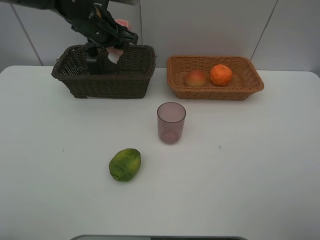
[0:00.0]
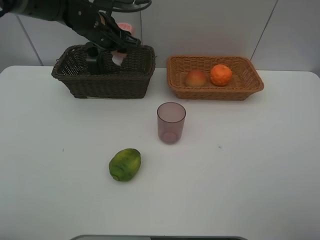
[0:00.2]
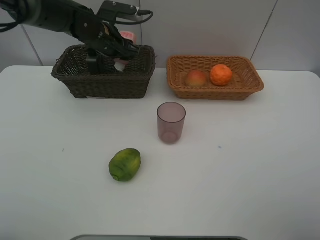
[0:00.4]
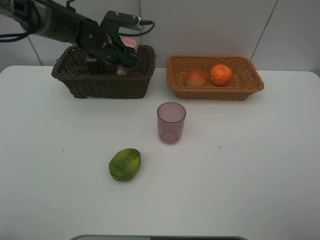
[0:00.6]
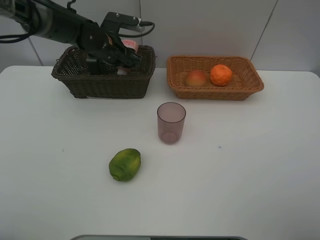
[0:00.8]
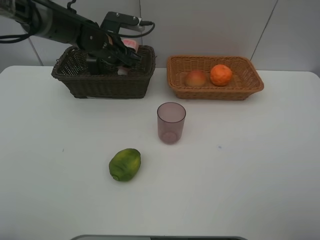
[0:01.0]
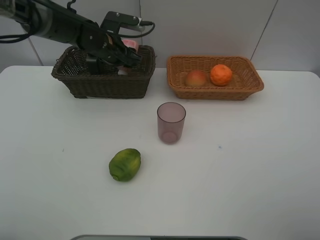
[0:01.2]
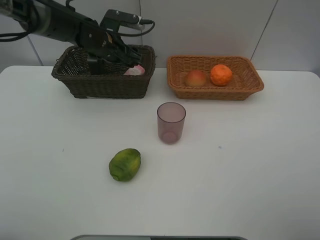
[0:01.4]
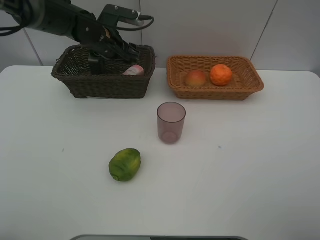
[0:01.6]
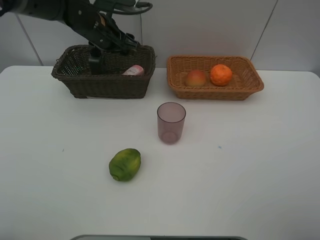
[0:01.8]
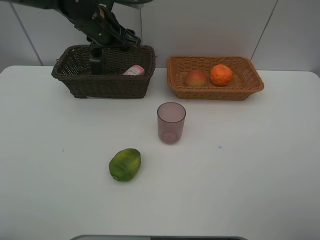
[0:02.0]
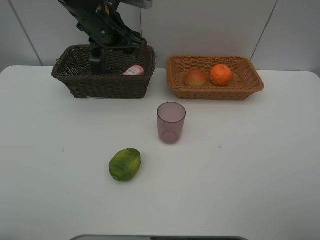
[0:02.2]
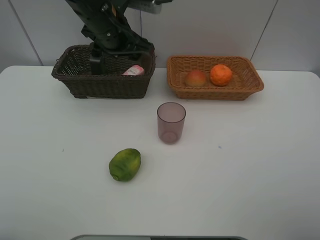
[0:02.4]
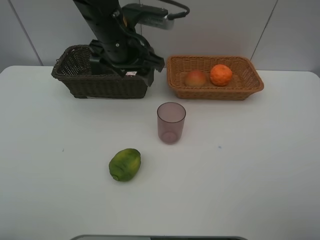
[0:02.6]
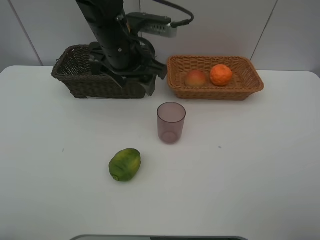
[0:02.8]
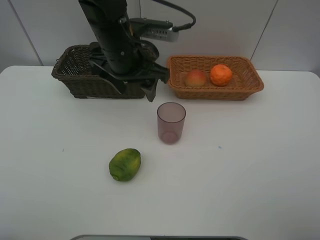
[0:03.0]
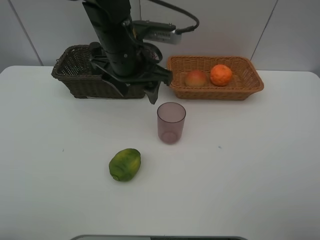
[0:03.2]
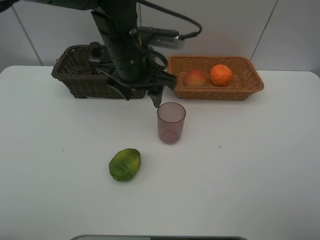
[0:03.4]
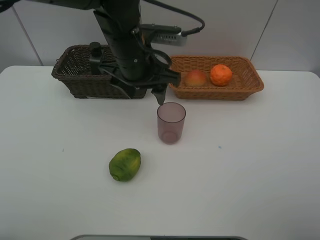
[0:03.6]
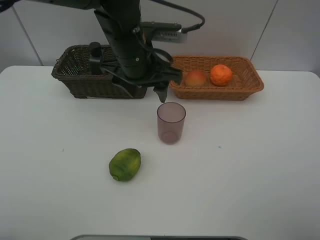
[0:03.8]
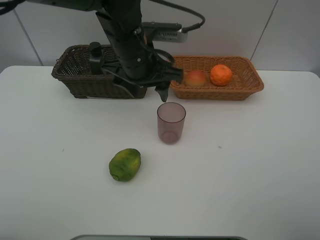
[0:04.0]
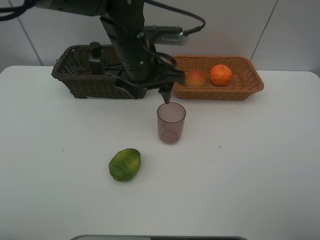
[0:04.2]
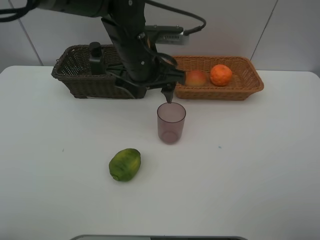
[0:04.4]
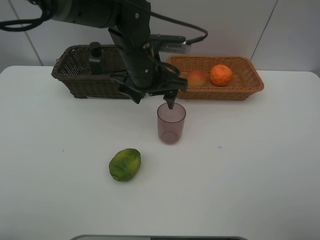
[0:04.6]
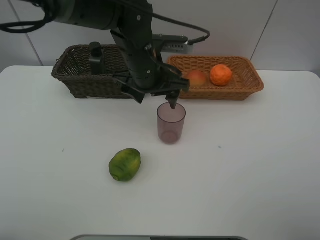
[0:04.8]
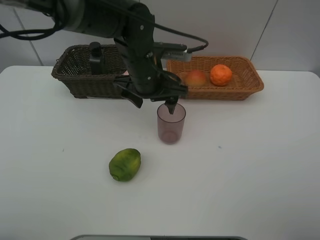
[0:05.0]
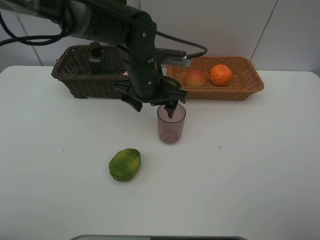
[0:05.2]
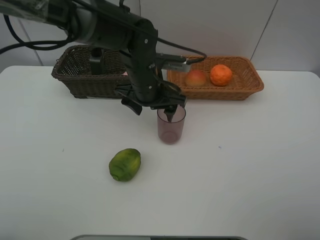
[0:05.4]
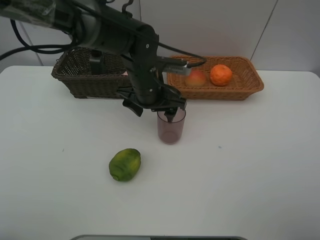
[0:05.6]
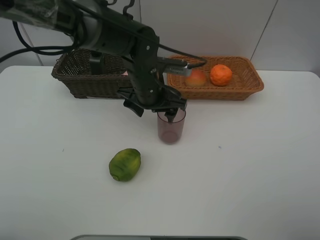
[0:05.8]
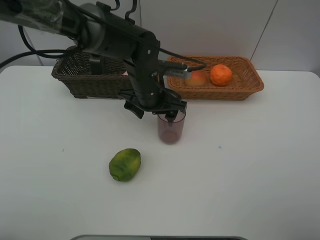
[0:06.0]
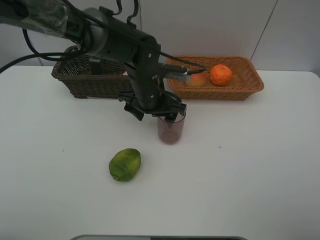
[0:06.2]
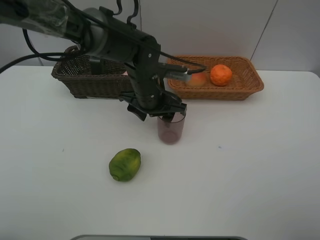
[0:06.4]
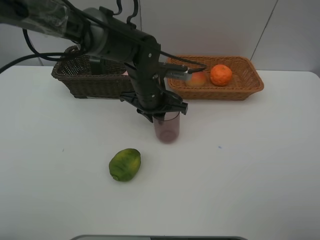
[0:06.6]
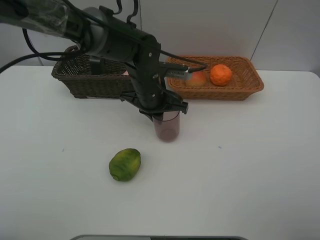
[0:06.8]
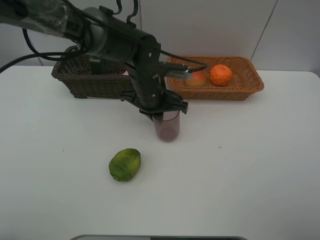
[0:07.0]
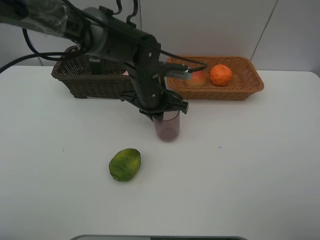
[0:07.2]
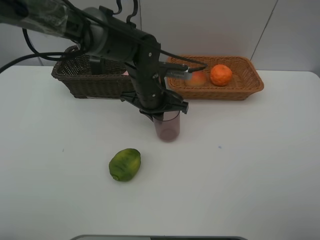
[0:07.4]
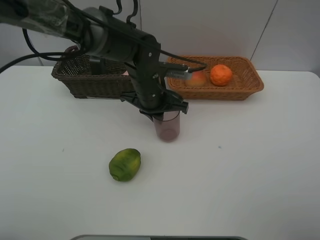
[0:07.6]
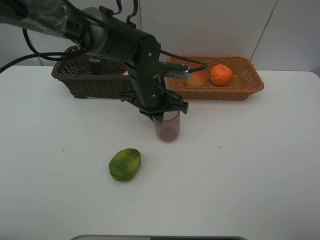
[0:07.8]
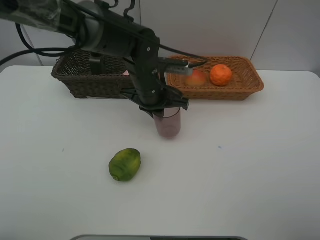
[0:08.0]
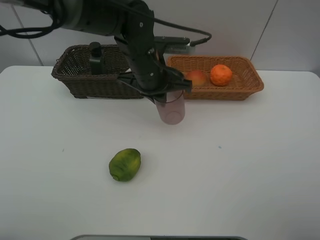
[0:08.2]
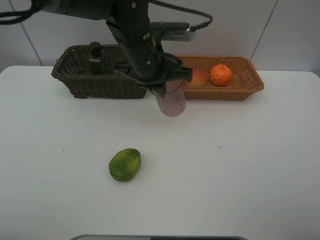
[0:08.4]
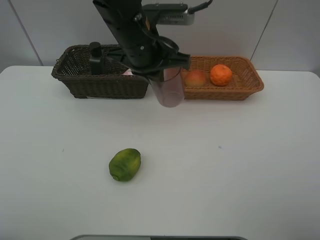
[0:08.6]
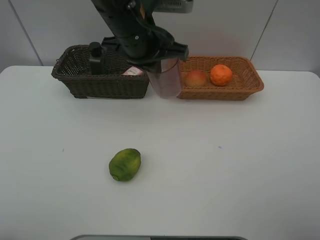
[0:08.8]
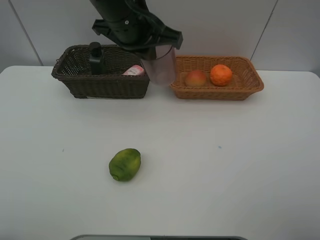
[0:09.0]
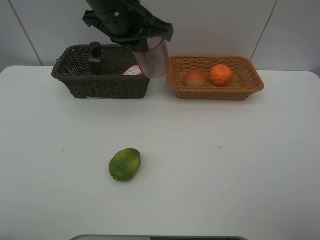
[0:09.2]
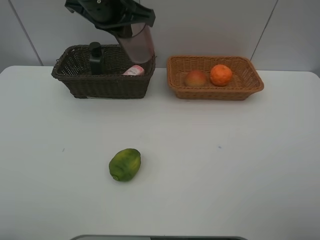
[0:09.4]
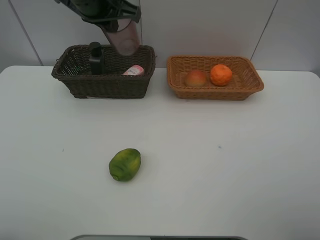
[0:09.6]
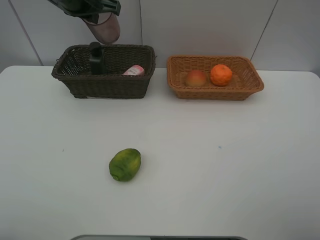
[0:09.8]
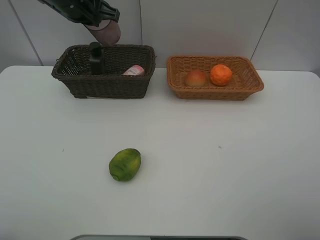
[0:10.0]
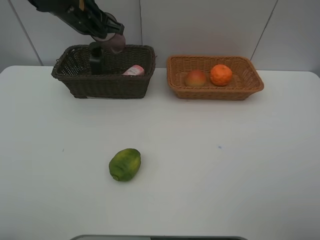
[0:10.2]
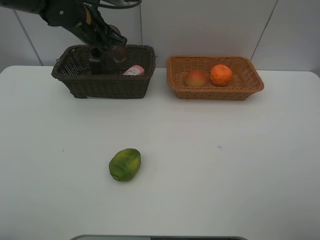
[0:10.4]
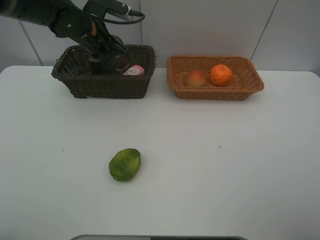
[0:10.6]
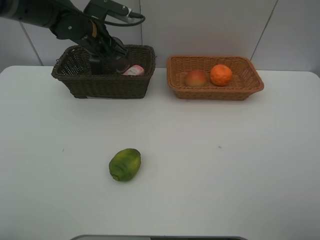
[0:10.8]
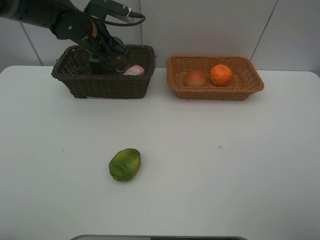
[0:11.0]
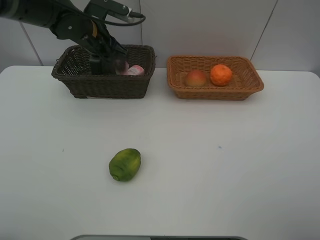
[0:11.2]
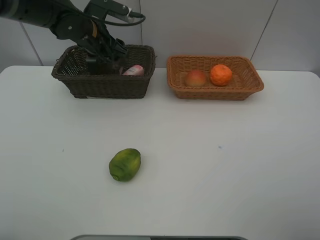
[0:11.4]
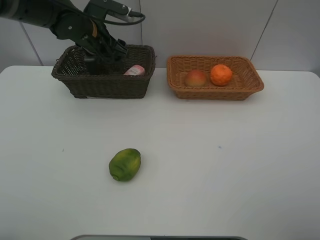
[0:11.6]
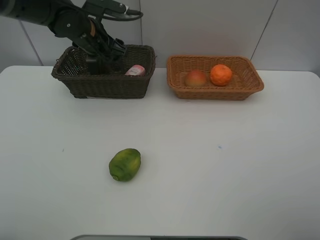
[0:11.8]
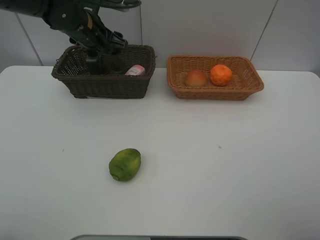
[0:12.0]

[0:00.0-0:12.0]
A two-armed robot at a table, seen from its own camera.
Task of the whole recording: place multiple objects separately in different baskets.
0:01.6 to 0:03.0: The left gripper travels backward, to the right and upward by roughly 15 cm.
0:03.0 to 0:04.4: The grippers stay close to where they were, moving slightly.
0:04.4 to 0:06.0: The left gripper moves downward, approximately 10 cm.
0:06.0 to 0:07.6: The left gripper closes its fingers.
0:07.6 to 0:09.0: The left gripper heads upward, covering some 15 cm.
0:09.0 to 0:10.4: The left gripper heads forward, to the left and downward, covering roughly 15 cm.
0:10.4 to 0:12.0: The left gripper opens.

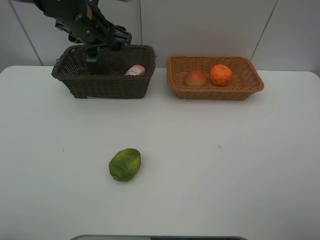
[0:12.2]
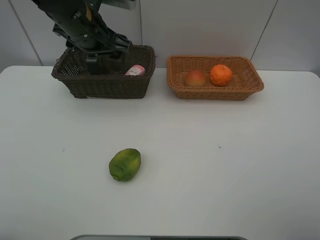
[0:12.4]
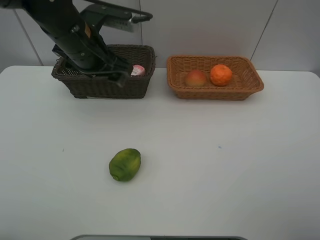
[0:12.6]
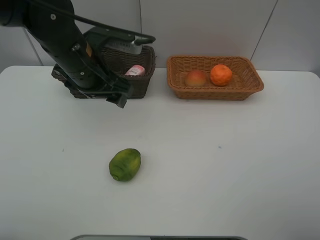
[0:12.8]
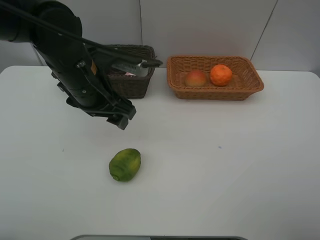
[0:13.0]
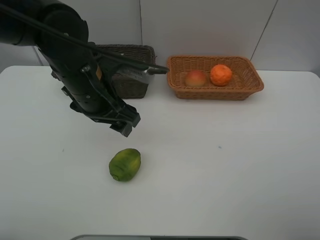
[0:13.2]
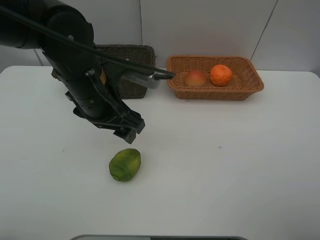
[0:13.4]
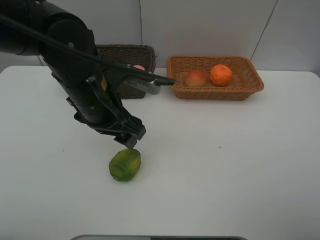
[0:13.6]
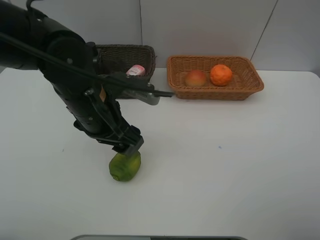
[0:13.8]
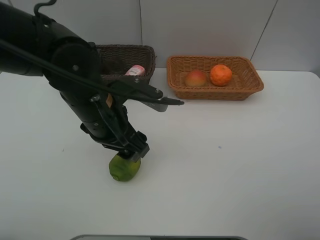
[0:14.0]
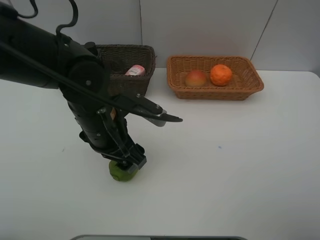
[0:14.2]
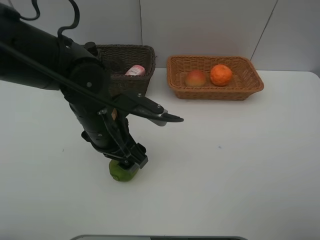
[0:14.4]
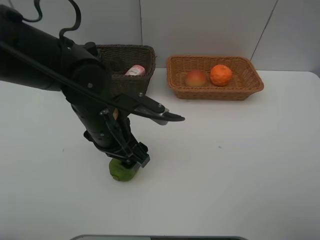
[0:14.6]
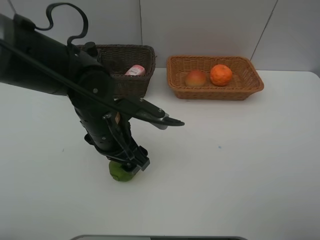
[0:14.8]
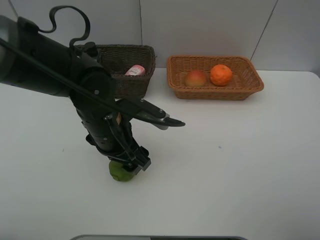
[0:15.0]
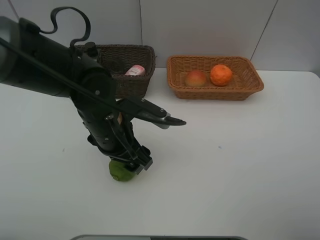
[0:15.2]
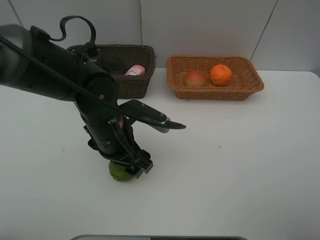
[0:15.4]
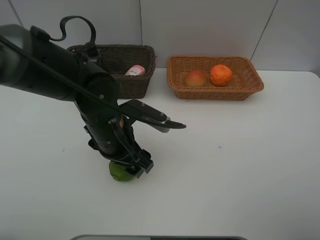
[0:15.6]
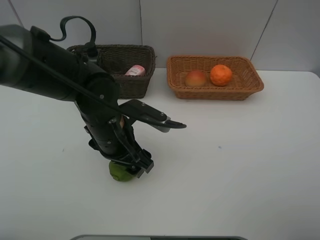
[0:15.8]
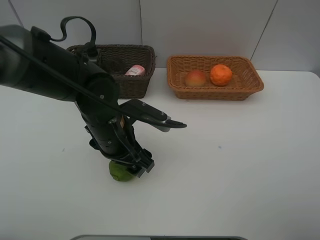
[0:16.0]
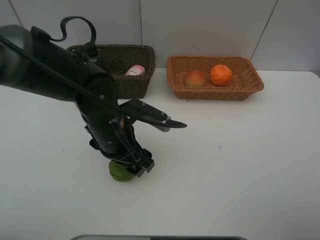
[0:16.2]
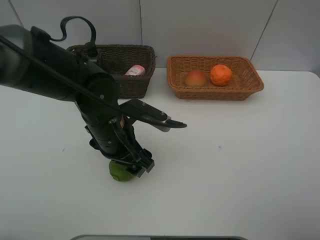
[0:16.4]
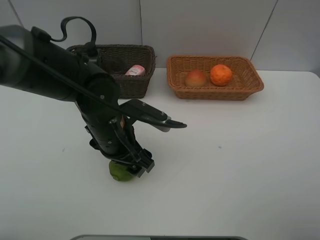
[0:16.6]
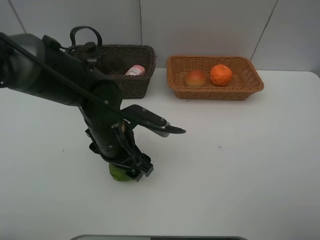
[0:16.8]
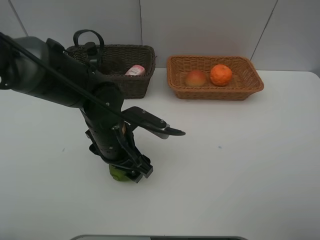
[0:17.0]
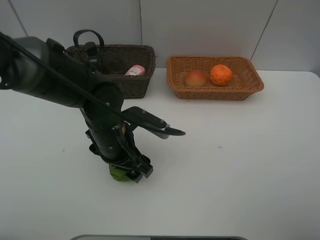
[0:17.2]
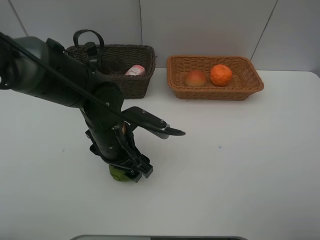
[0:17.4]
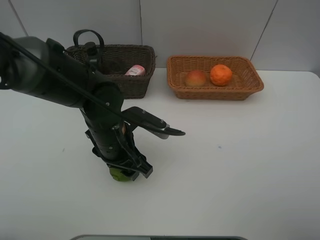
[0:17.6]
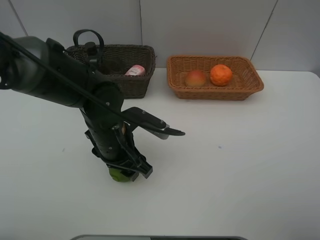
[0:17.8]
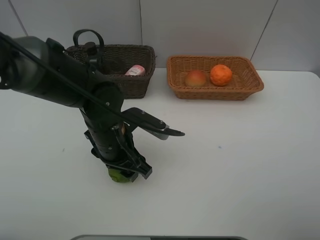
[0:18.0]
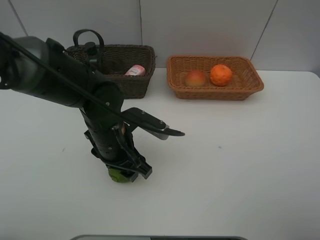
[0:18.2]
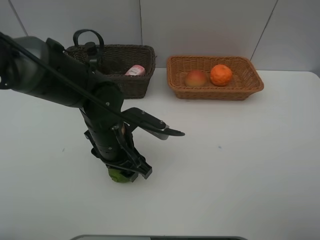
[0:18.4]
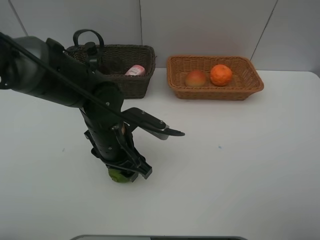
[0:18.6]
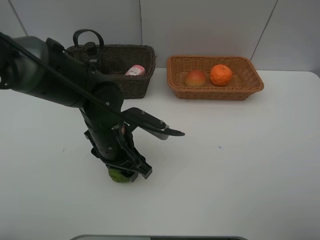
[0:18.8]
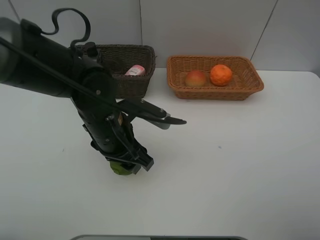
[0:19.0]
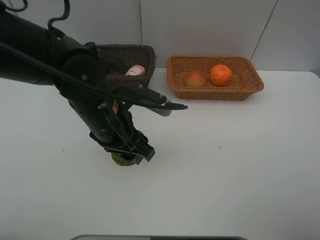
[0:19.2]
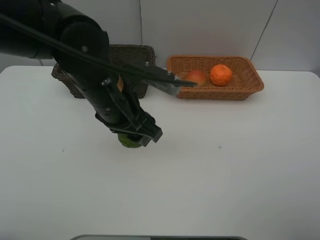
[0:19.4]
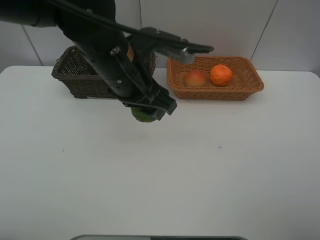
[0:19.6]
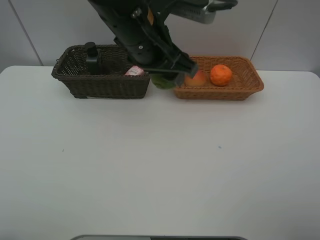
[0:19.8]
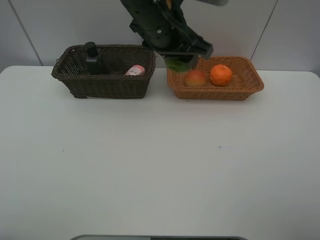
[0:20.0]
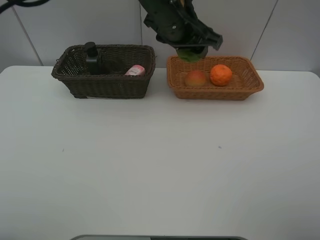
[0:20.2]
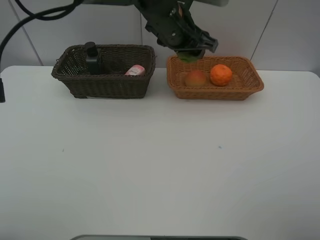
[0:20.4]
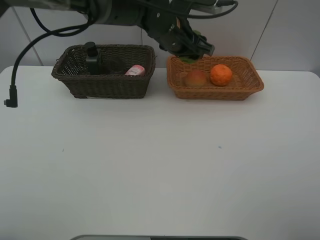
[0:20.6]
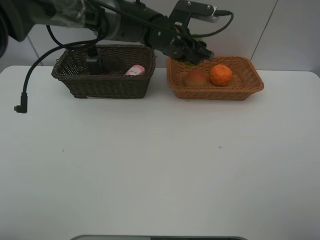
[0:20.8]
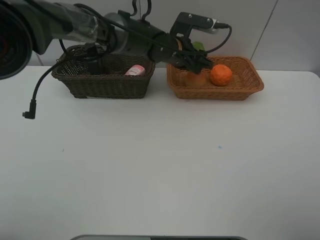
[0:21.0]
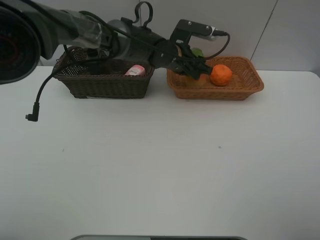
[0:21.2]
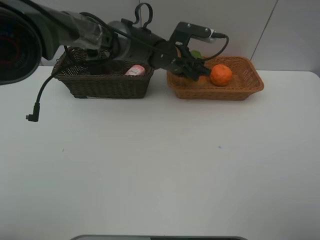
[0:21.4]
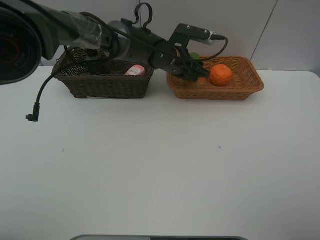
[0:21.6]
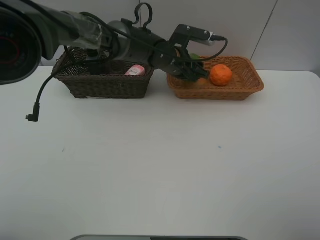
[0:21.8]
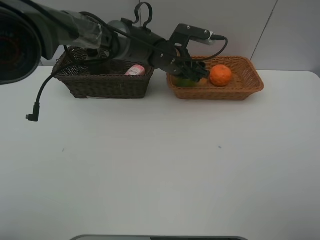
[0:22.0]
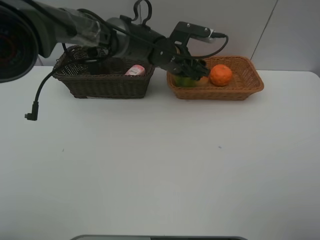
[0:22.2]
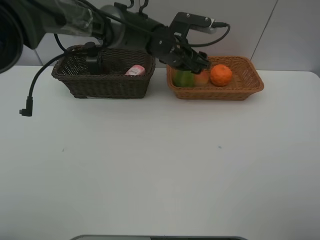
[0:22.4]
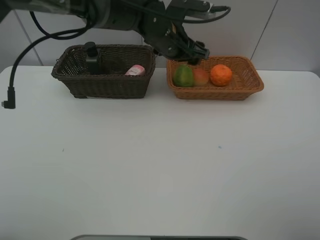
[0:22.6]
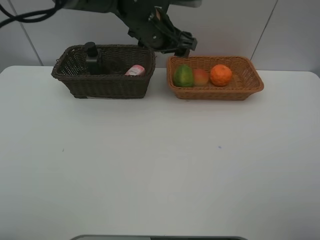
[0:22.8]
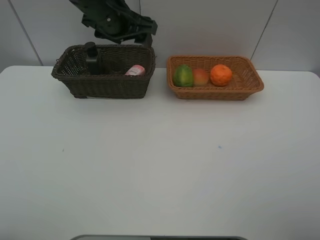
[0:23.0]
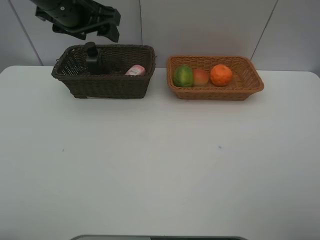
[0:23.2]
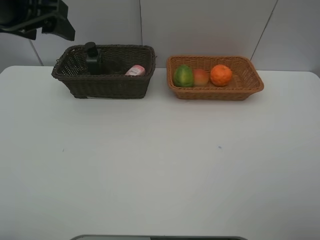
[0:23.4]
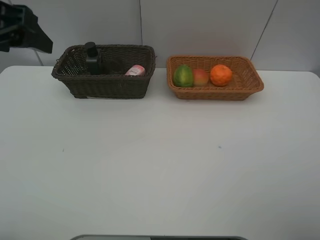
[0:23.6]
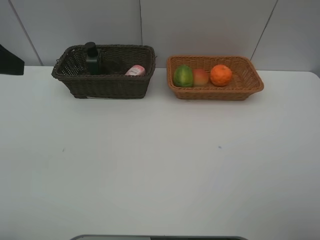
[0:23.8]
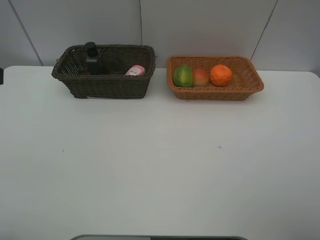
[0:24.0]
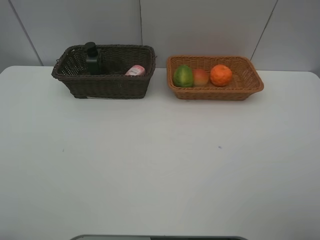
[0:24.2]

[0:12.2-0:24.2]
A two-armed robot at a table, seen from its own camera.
Task of the whole recording: place multiple objects separately in different baskets.
0:12.2 to 0:13.8: The left gripper is displaced backward and downward by roughly 15 cm.
0:13.8 to 0:15.2: The grippers move only a little.
0:15.2 to 0:16.6: The two grippers keep their place.
0:16.6 to 0:18.2: Both grippers stay about where they are.
0:18.2 to 0:19.8: The left gripper travels upward and forward by some 20 cm.
0:19.8 to 0:21.2: The left gripper shifts some 20 cm forward, downward and to the right.
0:21.2 to 0:22.6: The left gripper travels upward by roughly 5 cm.
0:22.6 to 0:24.2: The left gripper shifts about 40 cm backward and to the left.
